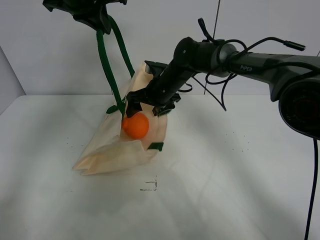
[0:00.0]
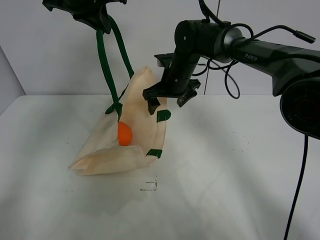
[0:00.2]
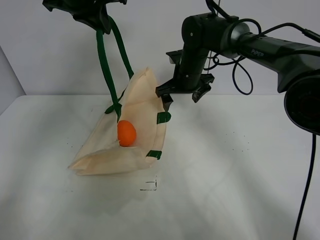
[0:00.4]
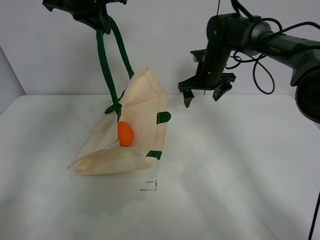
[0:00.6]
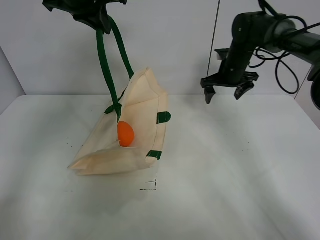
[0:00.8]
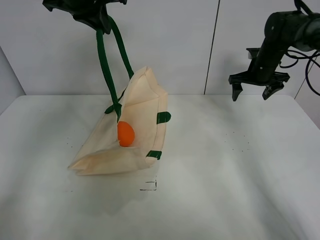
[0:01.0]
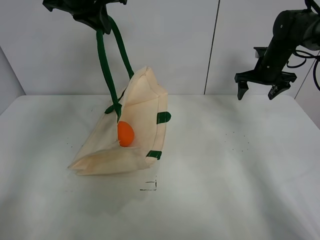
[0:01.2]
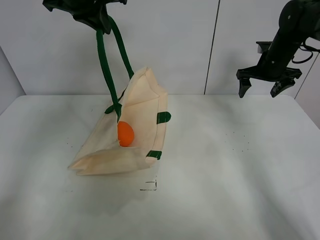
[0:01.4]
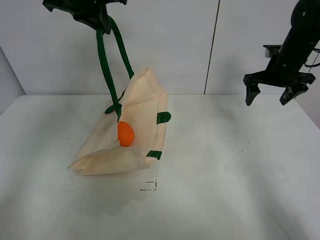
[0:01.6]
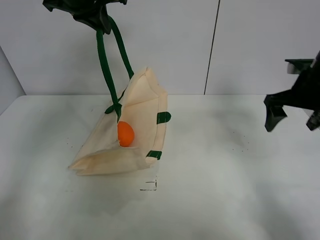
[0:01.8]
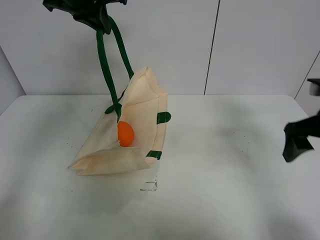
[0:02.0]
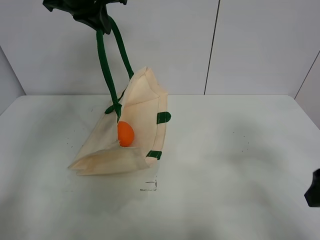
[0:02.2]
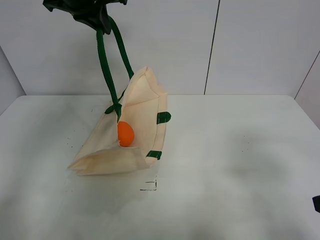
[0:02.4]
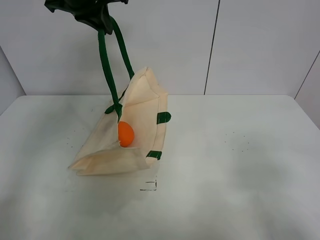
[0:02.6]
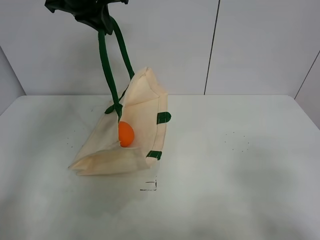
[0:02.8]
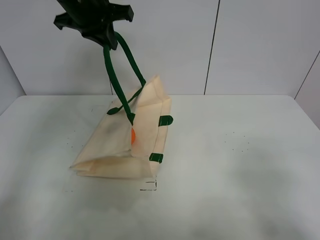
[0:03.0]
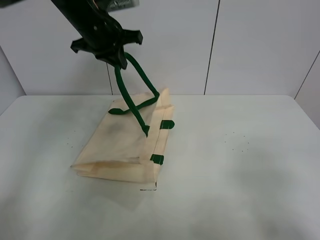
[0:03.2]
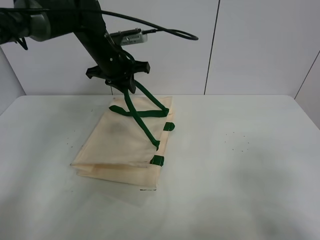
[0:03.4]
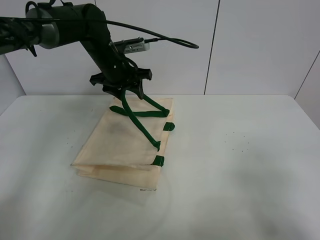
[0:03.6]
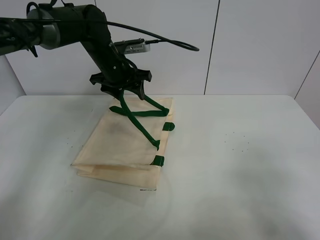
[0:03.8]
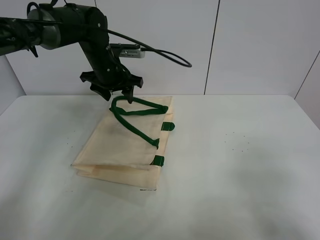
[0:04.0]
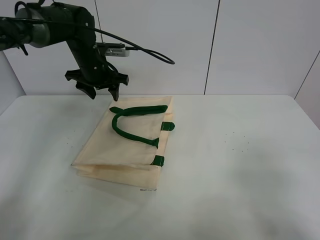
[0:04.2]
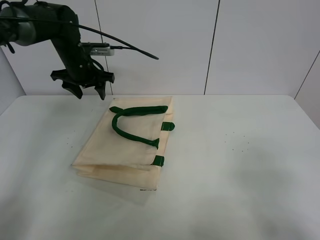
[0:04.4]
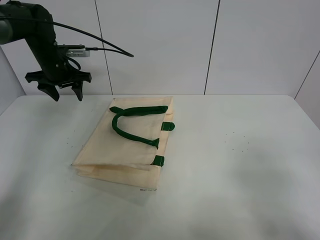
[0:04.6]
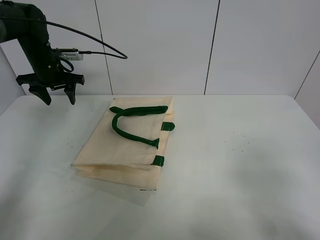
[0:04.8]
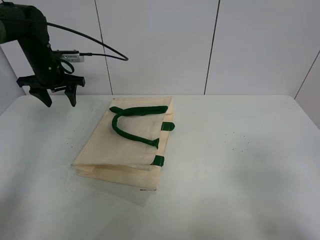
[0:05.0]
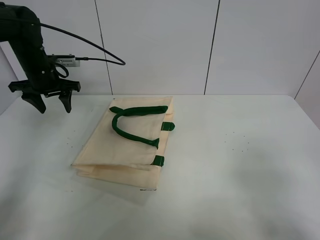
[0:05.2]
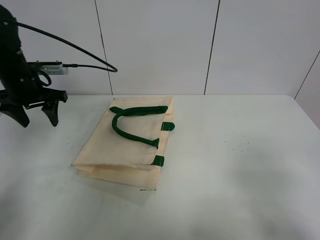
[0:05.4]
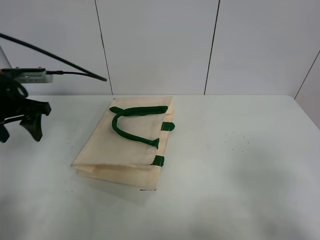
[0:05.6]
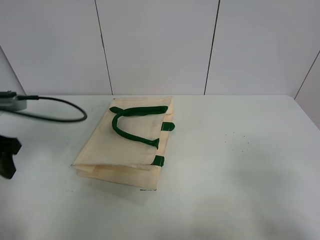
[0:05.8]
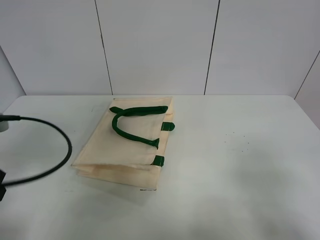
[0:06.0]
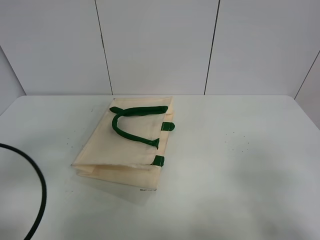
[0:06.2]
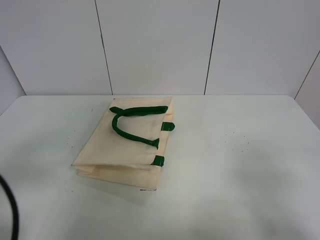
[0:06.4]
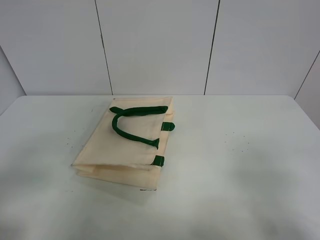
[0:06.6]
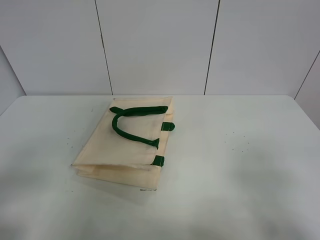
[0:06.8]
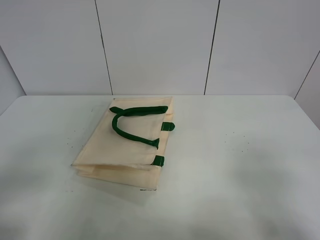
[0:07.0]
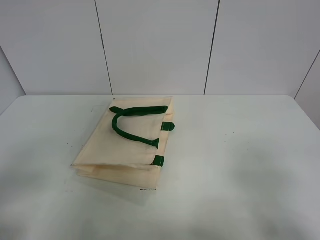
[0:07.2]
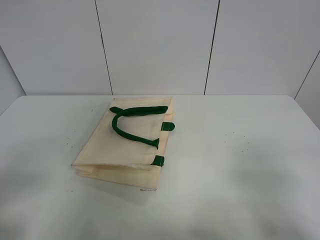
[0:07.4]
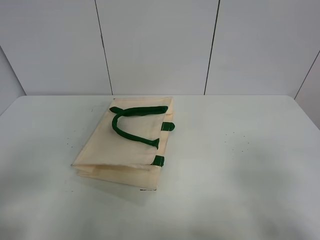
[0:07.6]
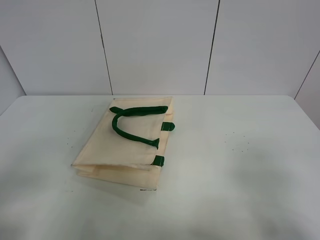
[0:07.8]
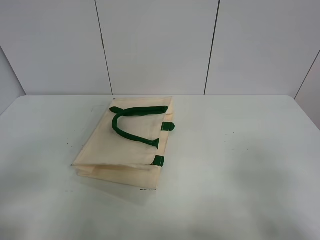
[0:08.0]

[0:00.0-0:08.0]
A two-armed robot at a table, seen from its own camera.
Task of the whole recording: open the white linen bag and put the orange in the bag.
Step, 0:00.6 to 0:04.2: Put down the handbag with left gripper.
0:00.0 to 0:01.6: The right gripper moves to the right, about 25 cm.
0:01.6 to 0:03.2: The right gripper shifts approximately 40 cm backward; the left gripper goes approximately 5 cm downward.
0:03.2 to 0:04.8: The left gripper heads to the left, downward and forward, covering roughly 20 cm, and opens its fingers.
0:04.8 to 0:06.4: The left gripper is displaced backward by approximately 40 cm.
0:06.4 to 0:08.0: The left gripper is displaced backward by approximately 5 cm.
